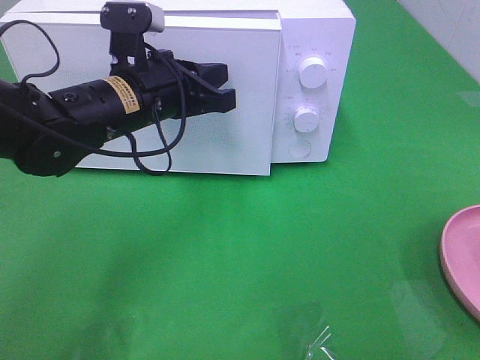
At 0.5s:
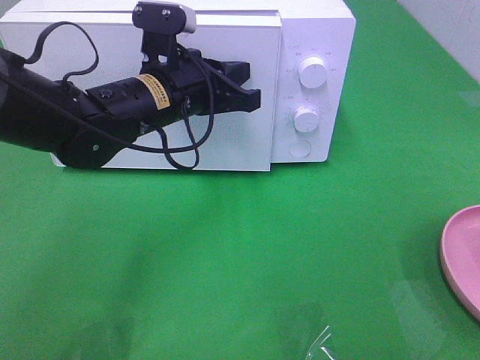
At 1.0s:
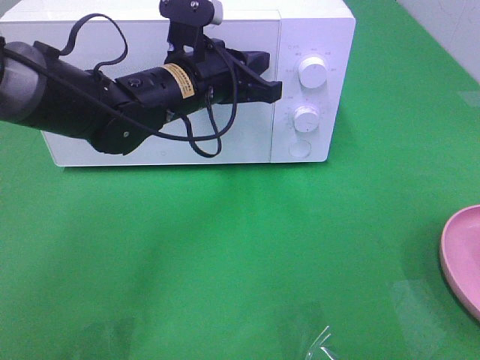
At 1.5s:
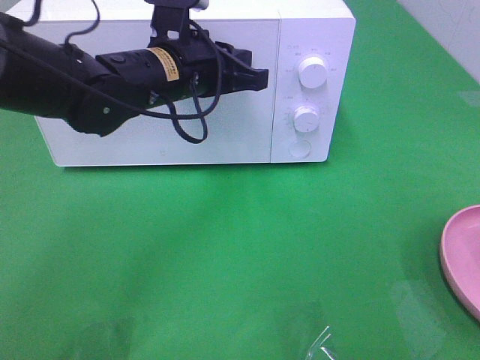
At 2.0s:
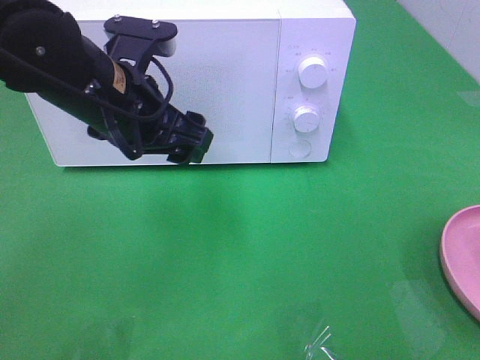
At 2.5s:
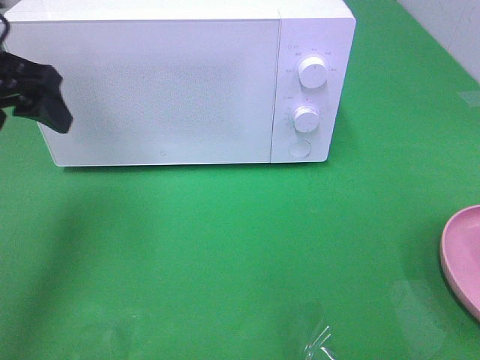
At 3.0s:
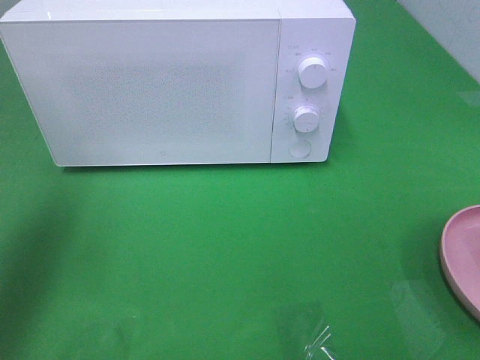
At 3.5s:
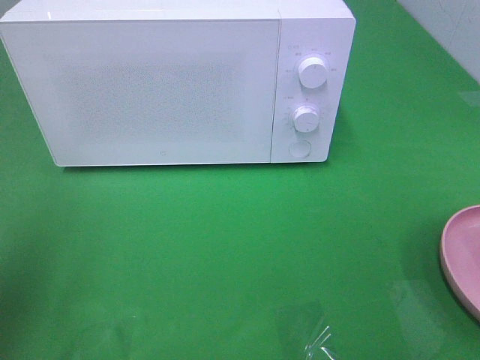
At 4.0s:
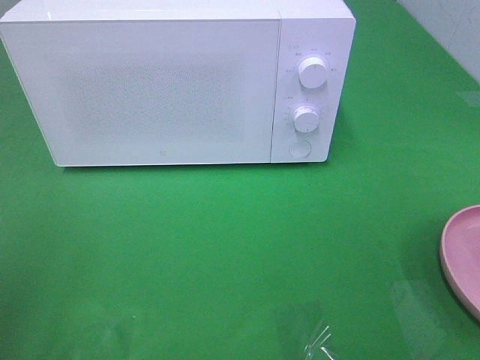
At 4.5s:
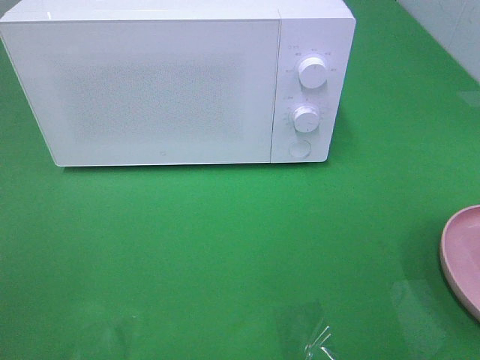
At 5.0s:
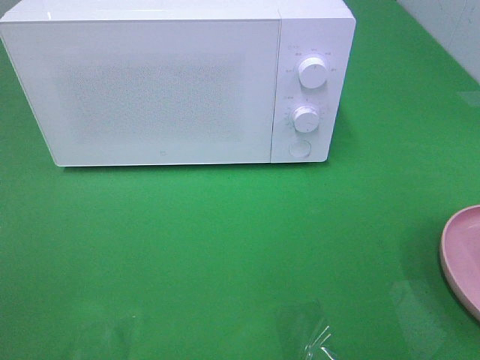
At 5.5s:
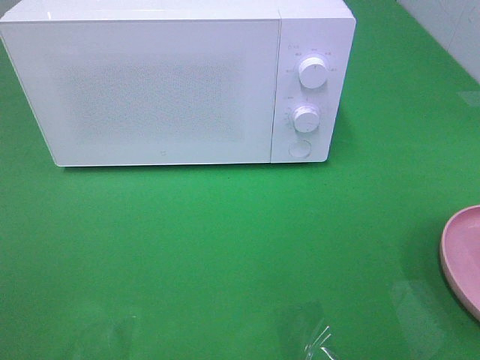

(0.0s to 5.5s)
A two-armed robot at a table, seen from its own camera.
Task of the whole recording: Heat the burger.
0.0s - 2.0s: The left gripper changes place by approximately 5 cm, and opens its fingers.
2.0s - 3.5s: The left gripper travels to the left and backward by approximately 25 cm.
3.5s - 5.5s: The left gripper shifts some 15 cm backward.

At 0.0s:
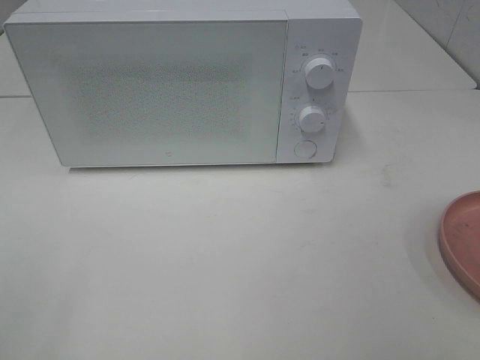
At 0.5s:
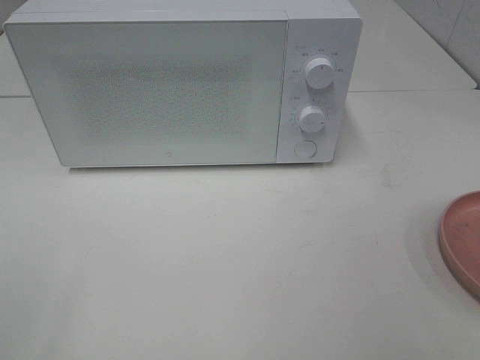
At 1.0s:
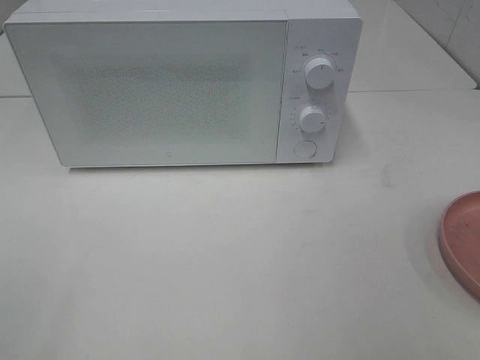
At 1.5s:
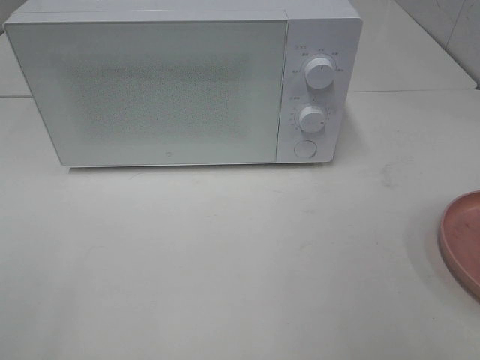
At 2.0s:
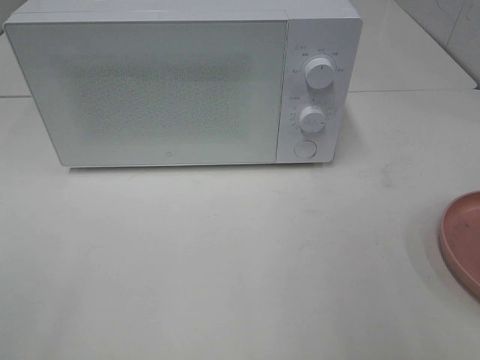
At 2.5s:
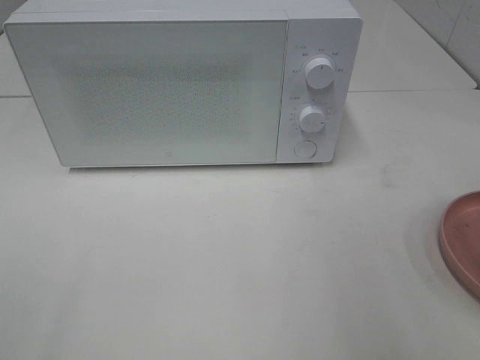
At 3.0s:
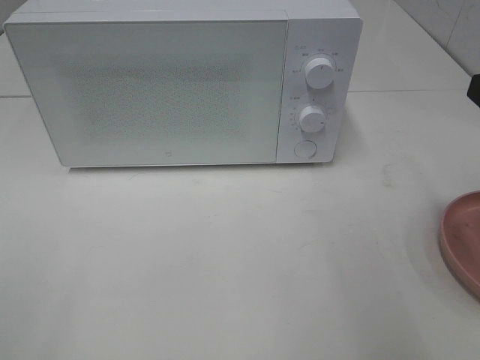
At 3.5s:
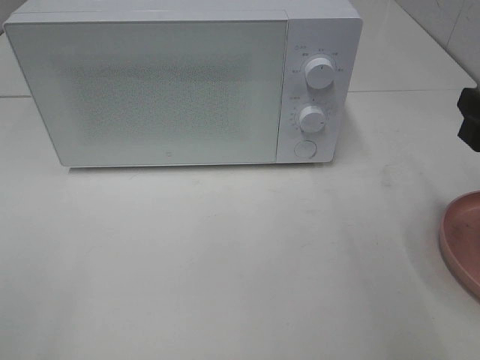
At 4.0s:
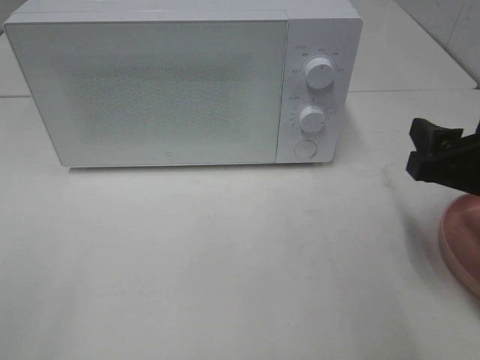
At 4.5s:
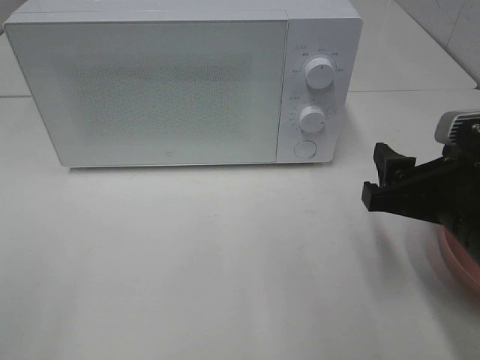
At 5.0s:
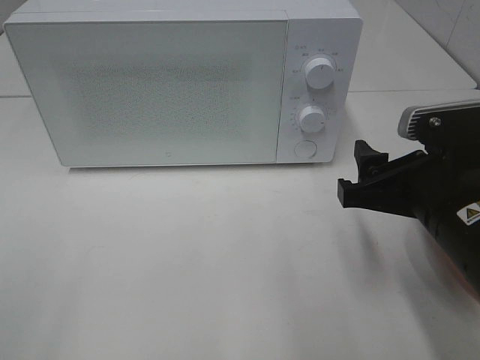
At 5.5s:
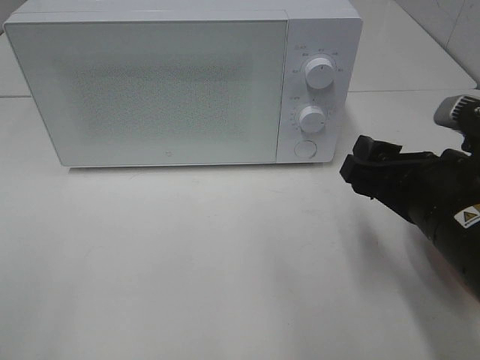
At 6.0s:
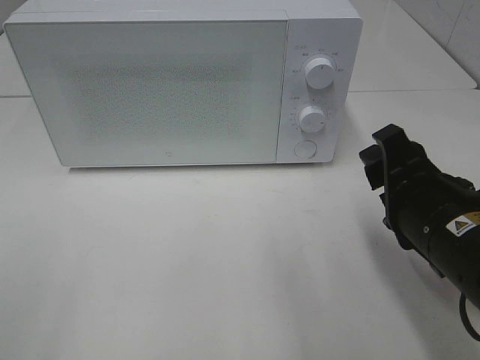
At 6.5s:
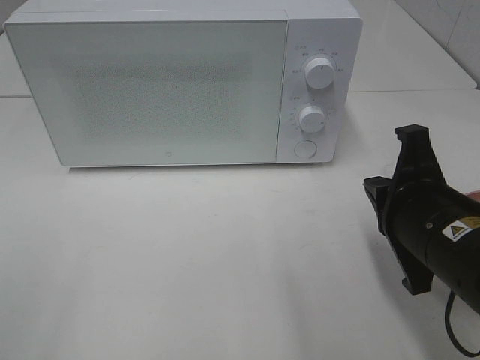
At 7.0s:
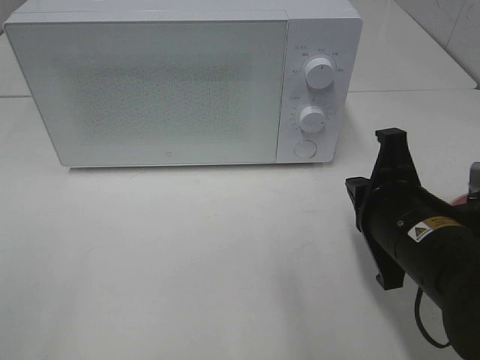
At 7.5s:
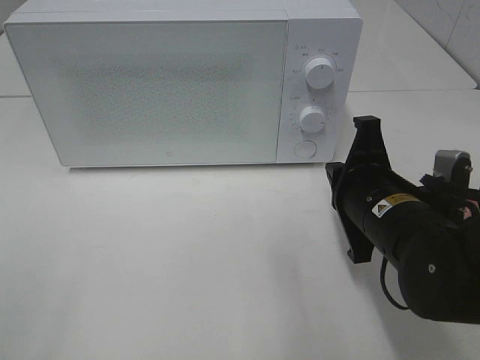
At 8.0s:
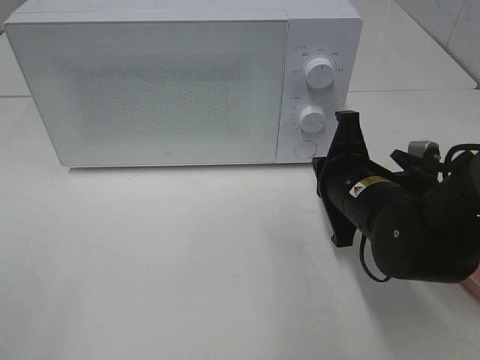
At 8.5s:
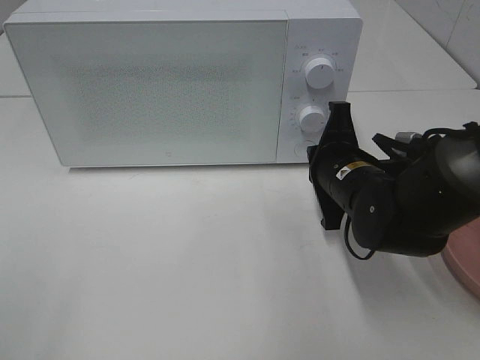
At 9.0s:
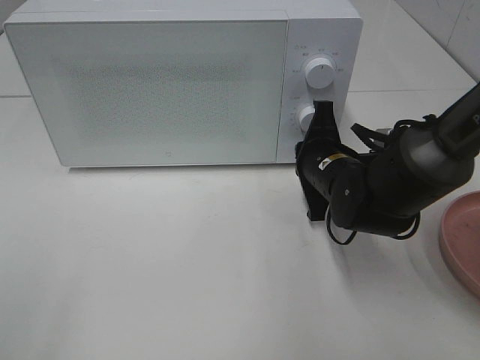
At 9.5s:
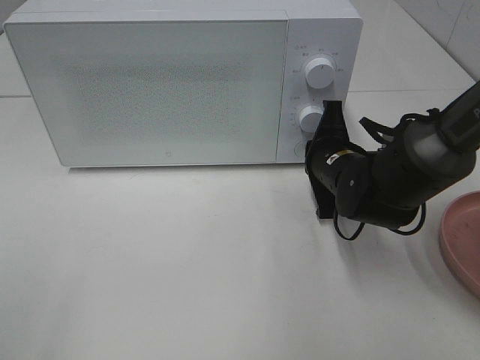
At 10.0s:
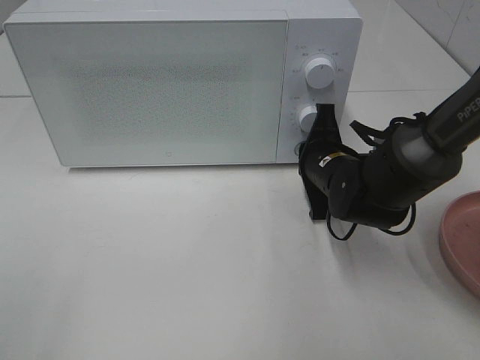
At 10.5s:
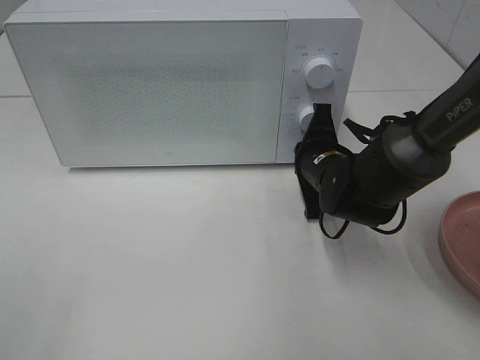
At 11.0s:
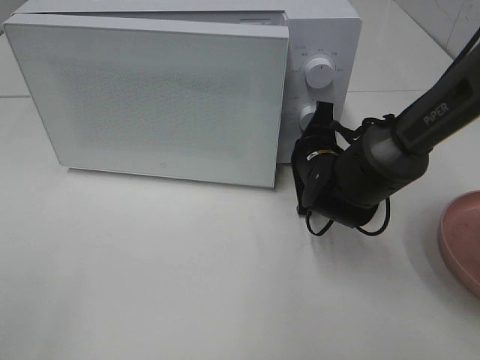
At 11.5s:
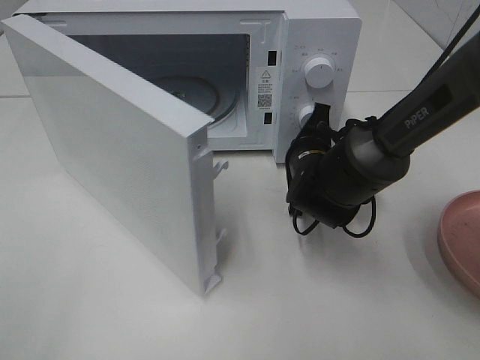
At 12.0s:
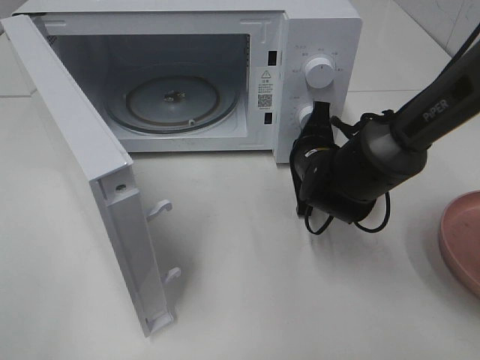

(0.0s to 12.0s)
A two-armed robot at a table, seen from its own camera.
Task of the whole recording: Heat the burger.
2.0s - 4.0s: The right gripper moves downward and forward, roughly 15 cm.
4.0s - 6.0s: The right gripper is displaced to the left by approximately 5 cm.
6.0s - 8.0s: The right gripper moves forward, some 10 cm, and closes.
8.0s - 10.0s: The right gripper goes approximately 10 cm forward.

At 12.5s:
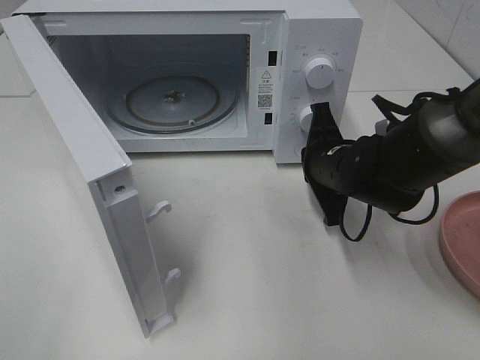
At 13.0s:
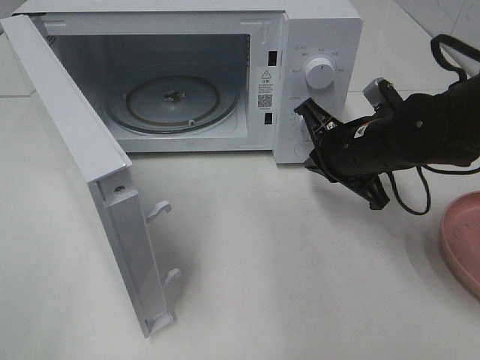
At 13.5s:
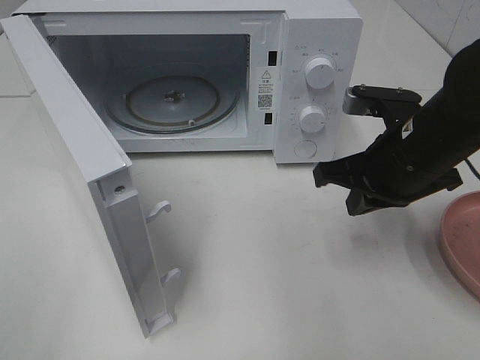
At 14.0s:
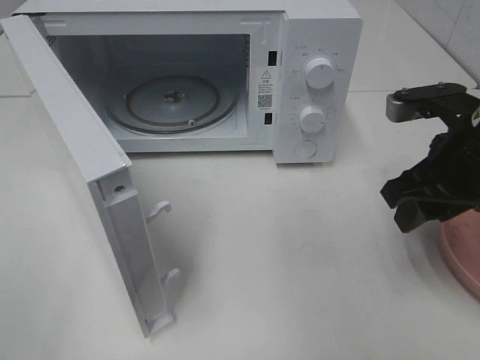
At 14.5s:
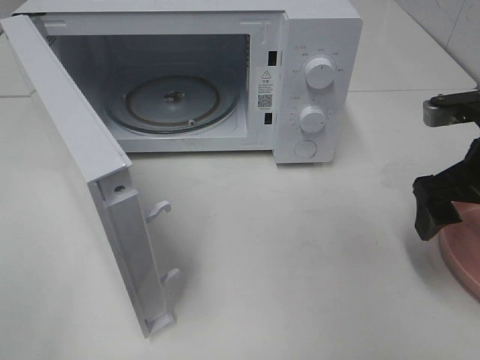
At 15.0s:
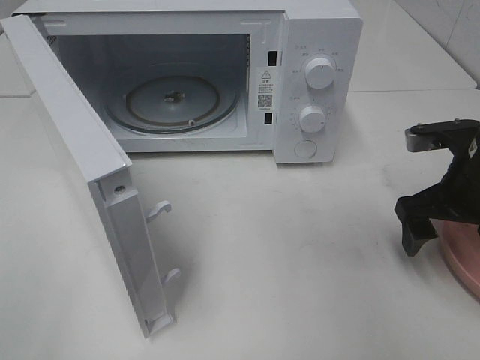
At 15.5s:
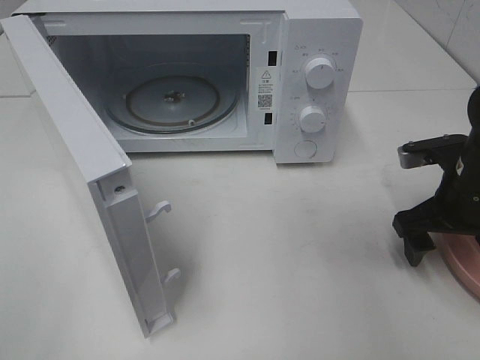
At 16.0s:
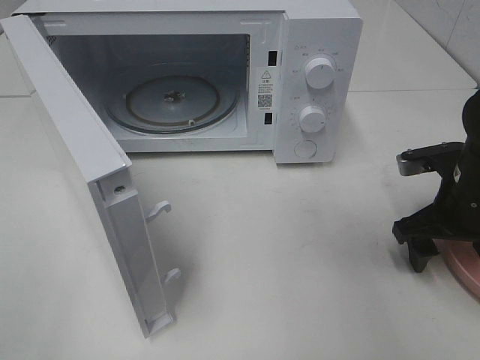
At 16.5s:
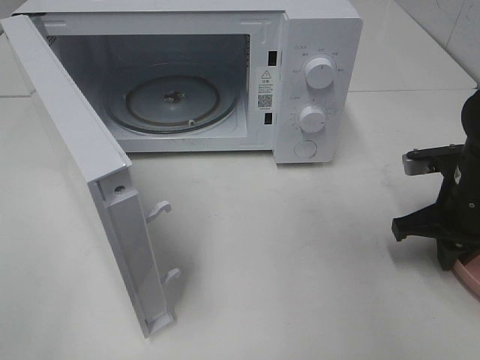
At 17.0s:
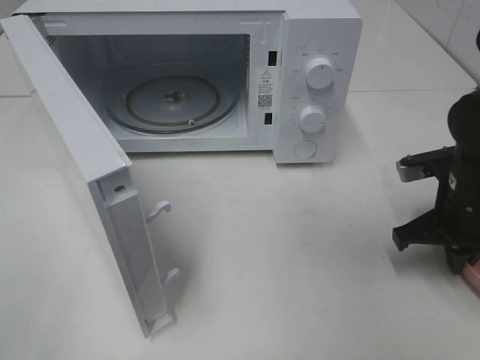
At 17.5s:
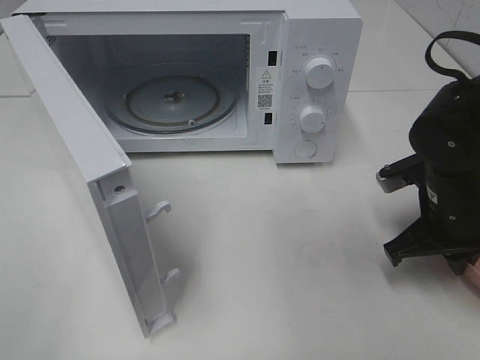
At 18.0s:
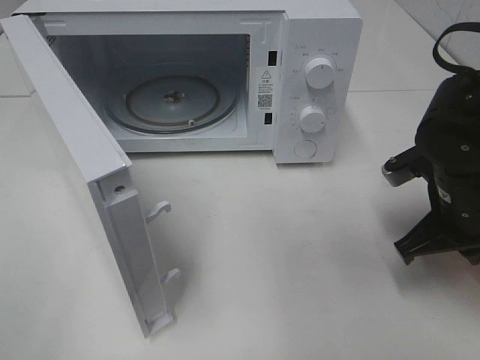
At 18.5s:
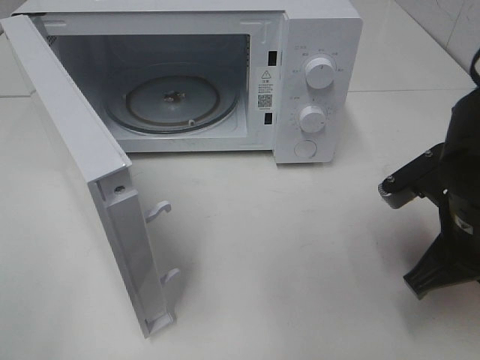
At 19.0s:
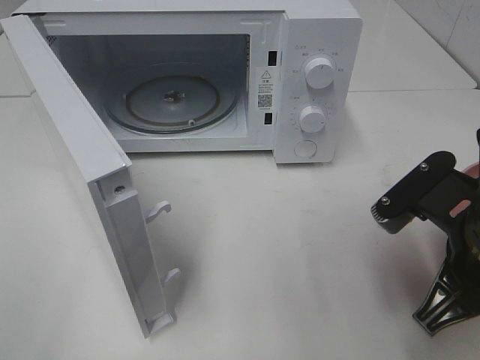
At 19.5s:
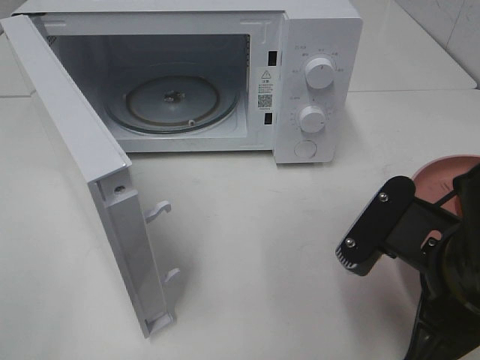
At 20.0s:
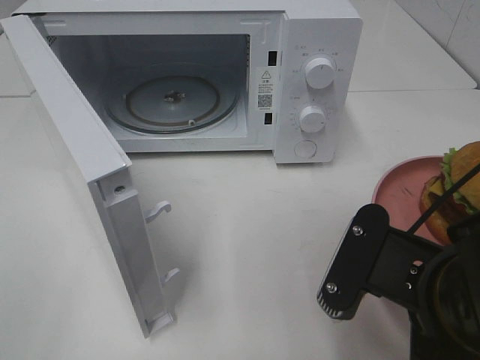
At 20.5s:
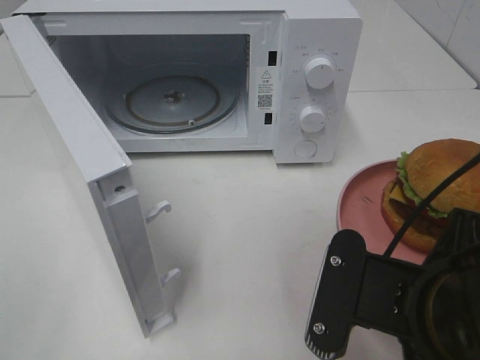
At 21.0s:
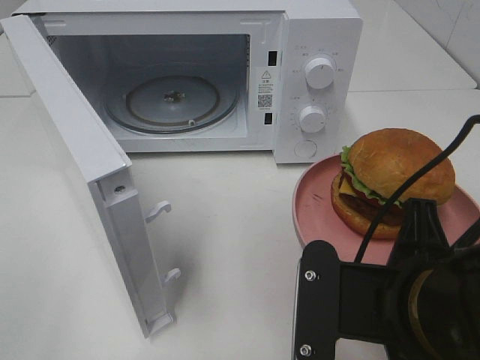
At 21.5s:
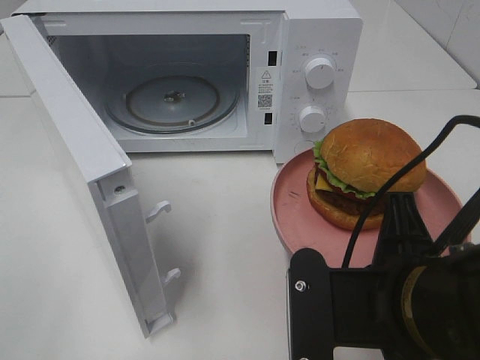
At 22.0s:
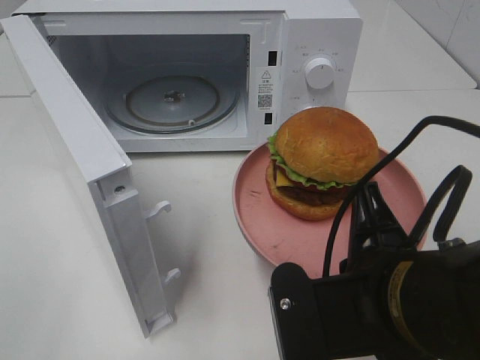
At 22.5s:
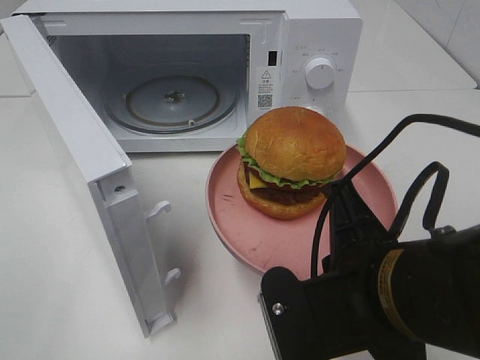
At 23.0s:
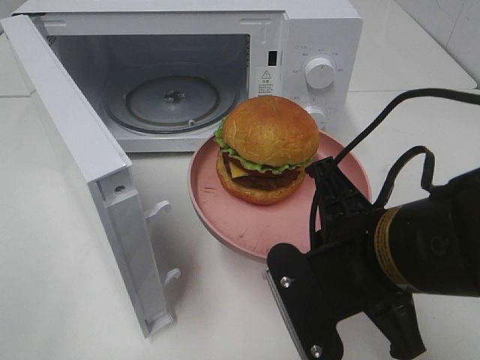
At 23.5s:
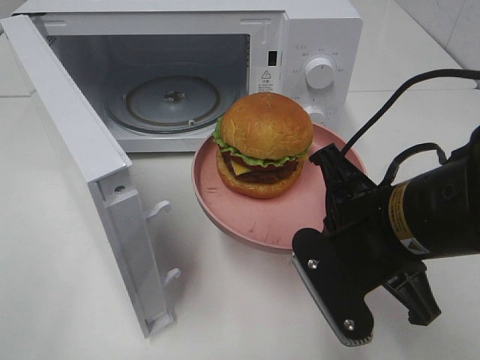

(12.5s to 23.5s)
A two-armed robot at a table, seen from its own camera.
Task of the whole recording: Heat the burger.
Step, 13.0s - 17.0s: Right hand: grab the plate with the hamburger.
12.5s - 14.5s: The right gripper is displaced to the right, upward and backward by about 15 cm, and opens.
14.5s - 16.0s: The right gripper travels downward by approximately 10 cm.
16.0s - 18.0s: The right gripper ends up some 5 cm from where it was, and closes.
18.0s - 20.0s: The right gripper shifts about 15 cm backward and to the left.
21.5s - 23.5s: The right gripper is displaced forward by about 5 cm.
